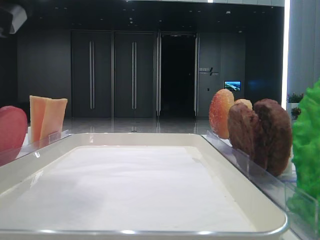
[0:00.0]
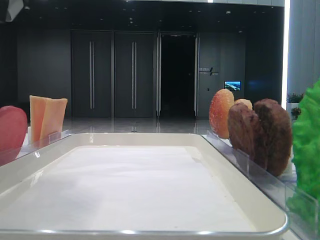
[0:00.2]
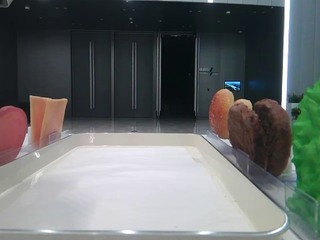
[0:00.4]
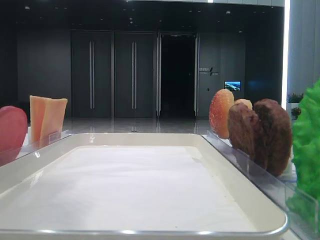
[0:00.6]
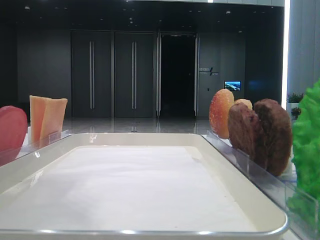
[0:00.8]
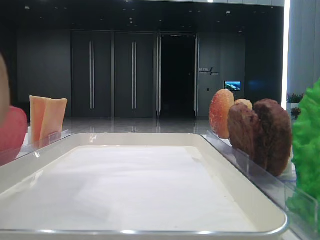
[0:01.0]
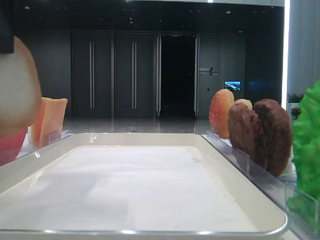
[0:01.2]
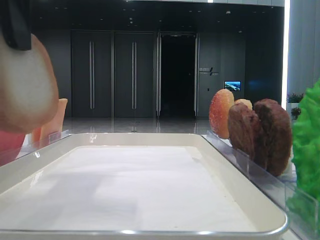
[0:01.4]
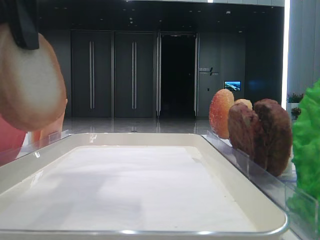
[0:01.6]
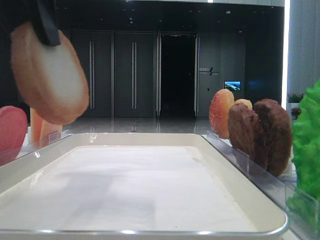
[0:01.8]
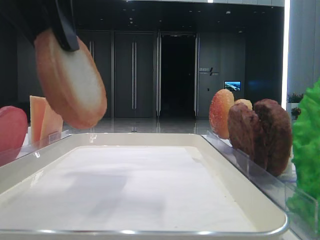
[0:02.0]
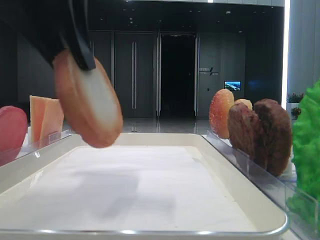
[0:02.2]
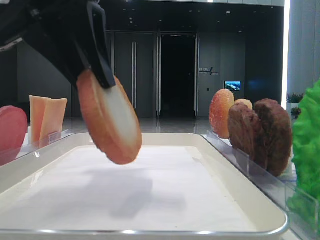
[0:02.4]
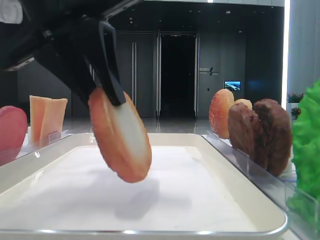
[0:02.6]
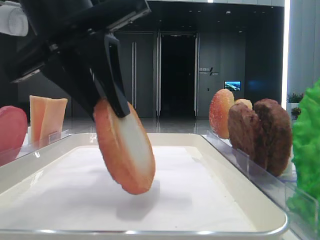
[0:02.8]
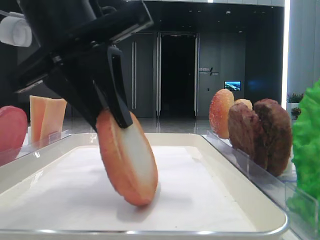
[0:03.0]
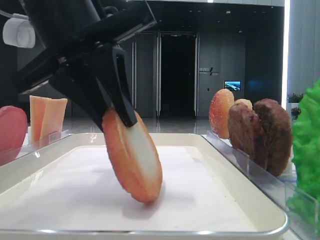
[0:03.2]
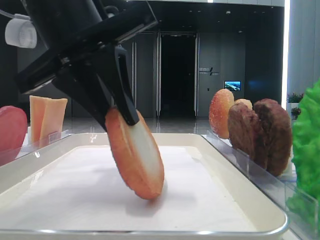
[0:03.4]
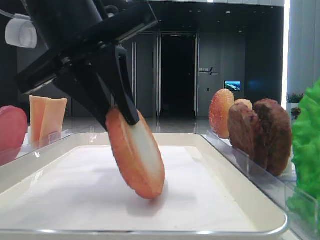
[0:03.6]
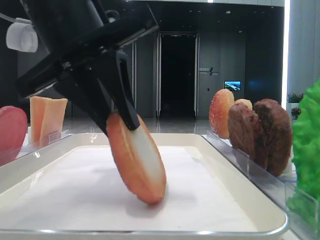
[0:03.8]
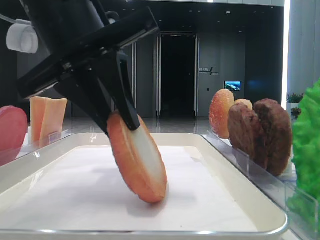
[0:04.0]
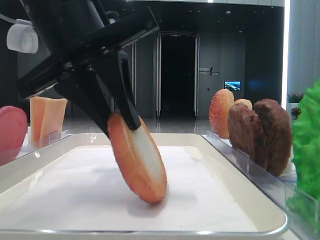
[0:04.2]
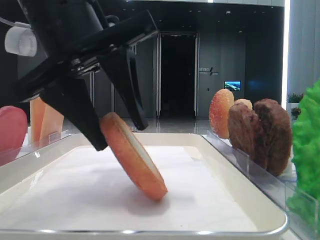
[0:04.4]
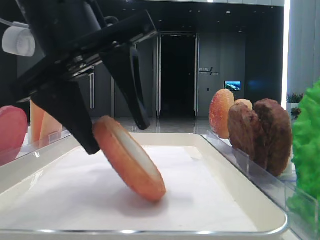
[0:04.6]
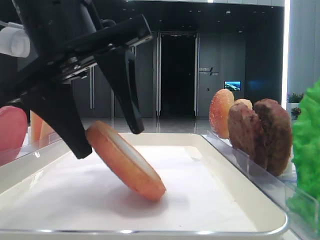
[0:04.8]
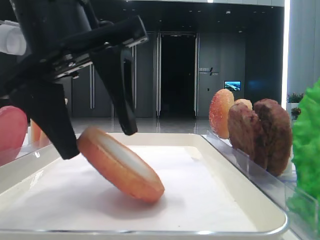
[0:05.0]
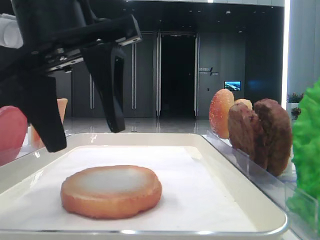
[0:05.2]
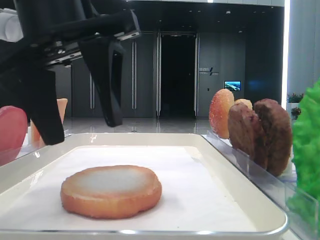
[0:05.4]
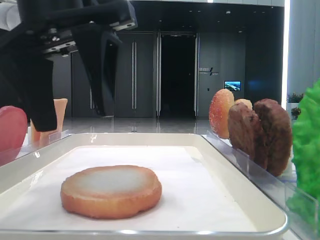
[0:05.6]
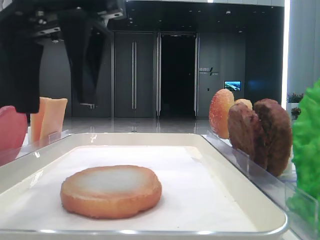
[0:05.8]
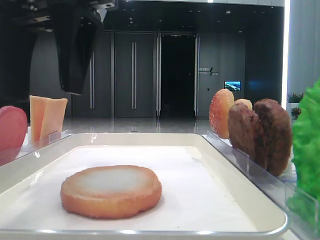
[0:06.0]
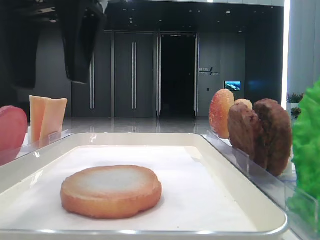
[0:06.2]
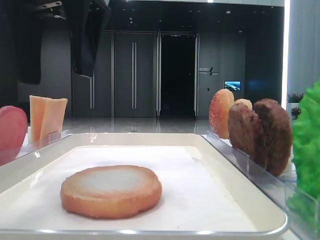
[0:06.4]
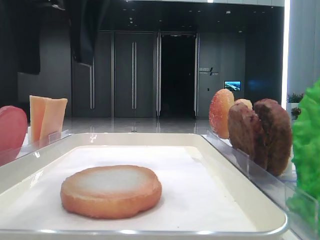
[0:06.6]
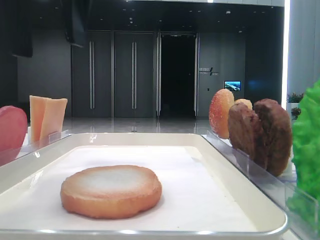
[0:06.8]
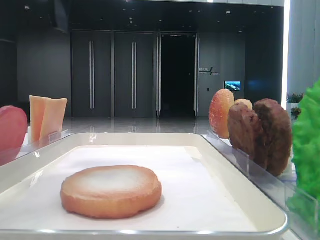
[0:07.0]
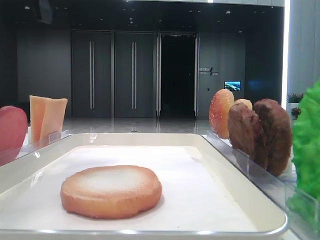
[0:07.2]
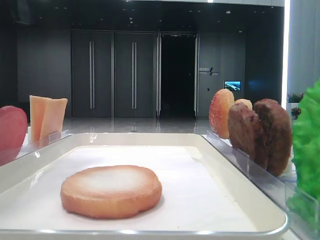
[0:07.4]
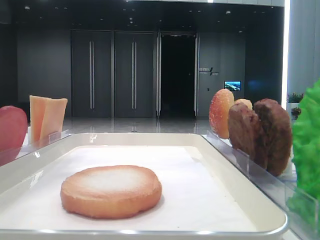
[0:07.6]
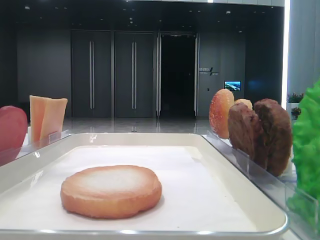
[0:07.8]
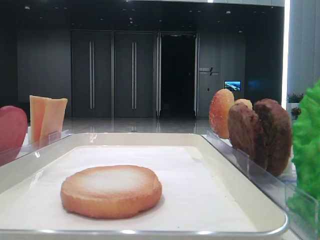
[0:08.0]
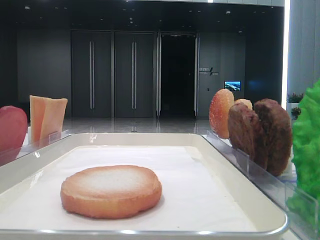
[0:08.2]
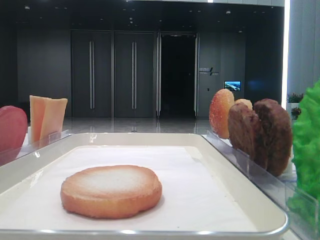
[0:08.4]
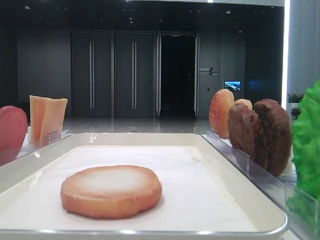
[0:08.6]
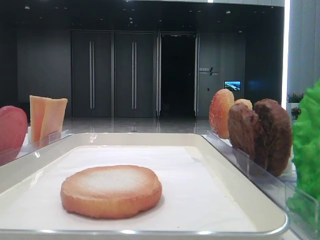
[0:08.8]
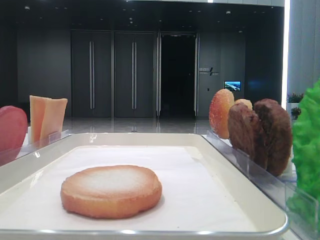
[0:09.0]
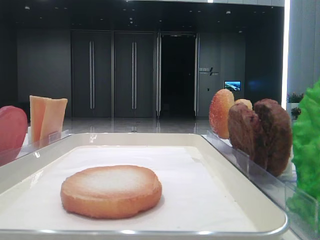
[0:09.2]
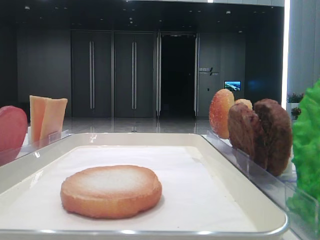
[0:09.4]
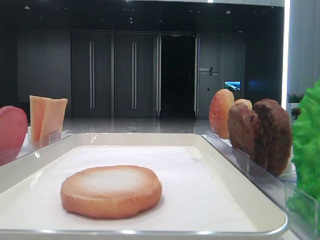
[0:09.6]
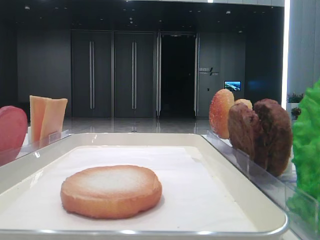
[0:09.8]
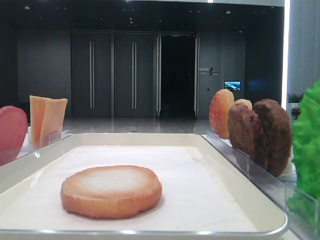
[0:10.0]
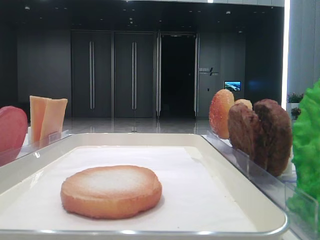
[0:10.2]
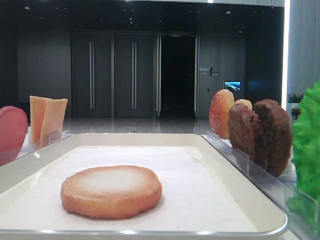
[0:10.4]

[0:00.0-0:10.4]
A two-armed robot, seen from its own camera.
Step, 0:00.0 to 0:05.0: Place the bread on the tray with the left hand.
0:00.0 to 0:01.4: The left gripper moves upward, approximately 5 cm.
0:01.4 to 0:03.0: The left gripper travels downward and to the right by some 10 cm.
0:03.0 to 0:04.4: The left gripper opens up.
0:04.4 to 0:06.0: The left gripper goes roughly 5 cm upward, and opens its fingers.
0:06.0 to 0:07.4: The left gripper heads to the left and upward, covering roughly 10 cm.

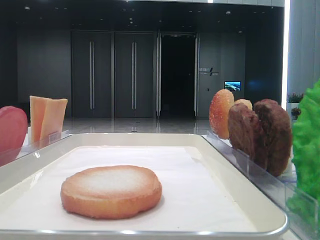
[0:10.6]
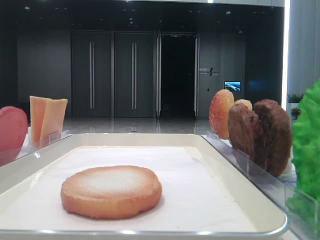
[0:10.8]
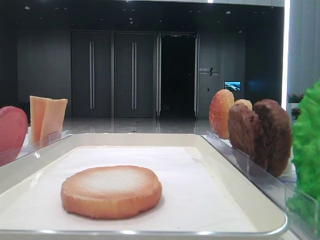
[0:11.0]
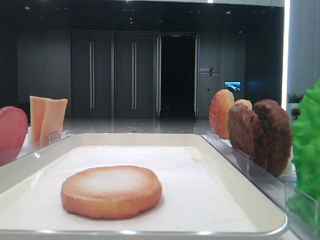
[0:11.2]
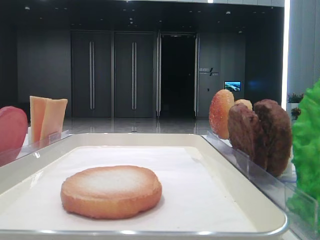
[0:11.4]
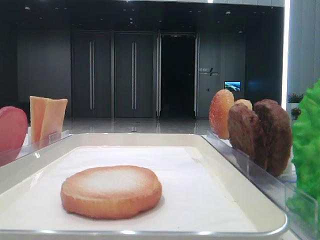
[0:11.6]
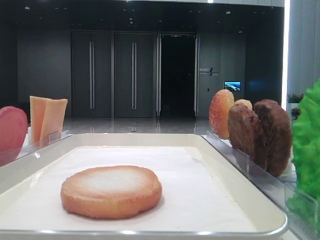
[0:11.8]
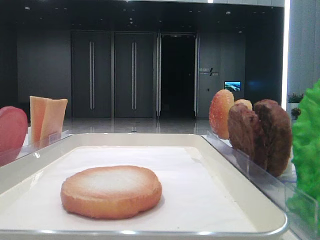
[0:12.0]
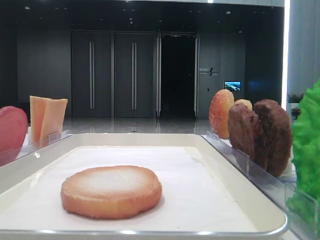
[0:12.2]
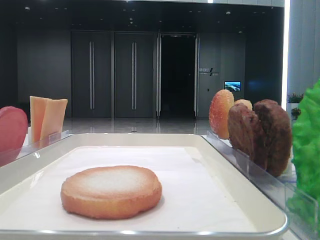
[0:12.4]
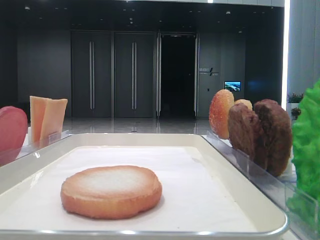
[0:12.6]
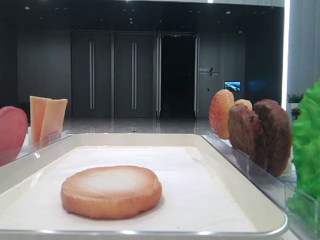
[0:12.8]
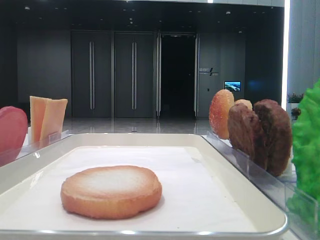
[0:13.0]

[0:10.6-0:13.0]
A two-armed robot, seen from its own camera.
0:11.8 to 0:13.0: The two grippers keep their place.

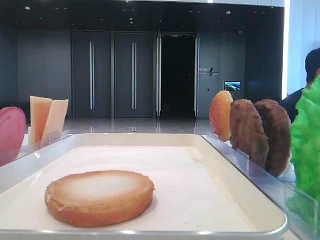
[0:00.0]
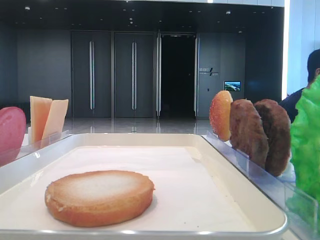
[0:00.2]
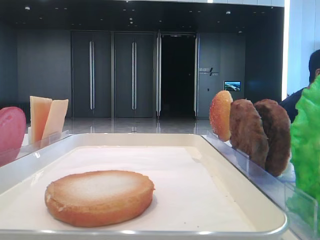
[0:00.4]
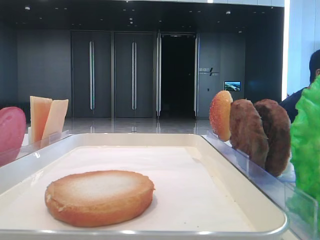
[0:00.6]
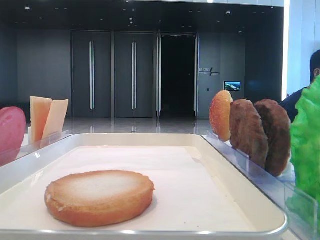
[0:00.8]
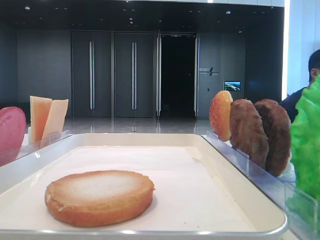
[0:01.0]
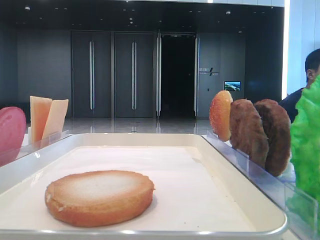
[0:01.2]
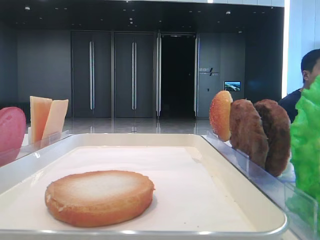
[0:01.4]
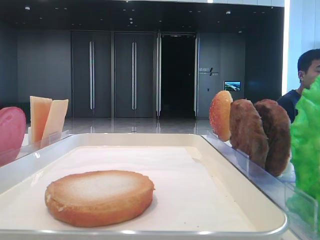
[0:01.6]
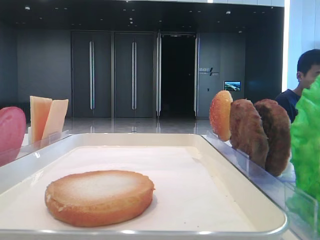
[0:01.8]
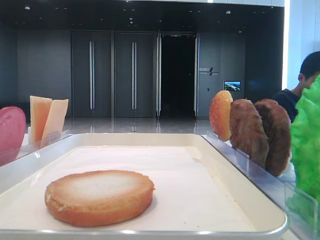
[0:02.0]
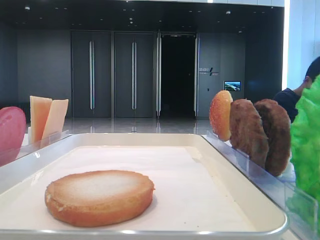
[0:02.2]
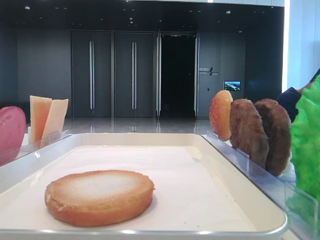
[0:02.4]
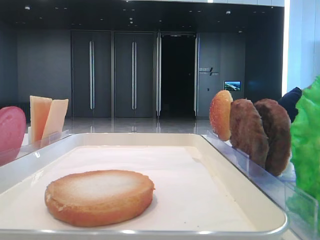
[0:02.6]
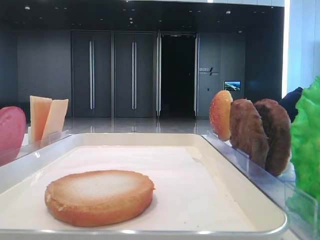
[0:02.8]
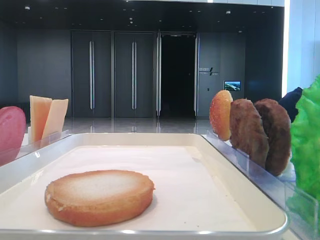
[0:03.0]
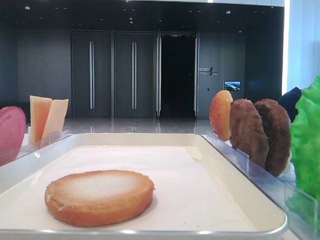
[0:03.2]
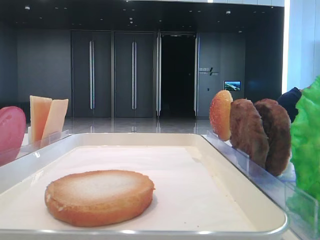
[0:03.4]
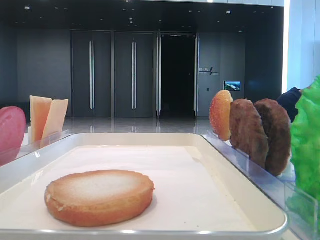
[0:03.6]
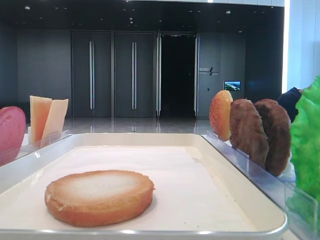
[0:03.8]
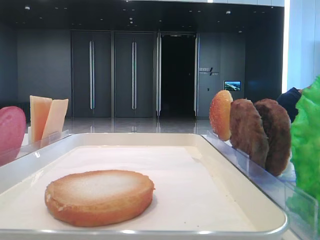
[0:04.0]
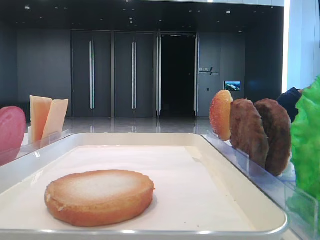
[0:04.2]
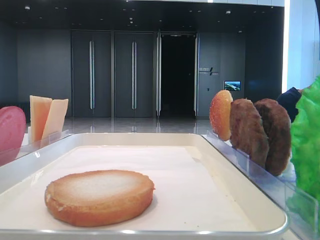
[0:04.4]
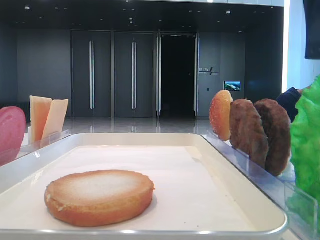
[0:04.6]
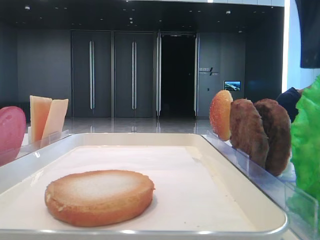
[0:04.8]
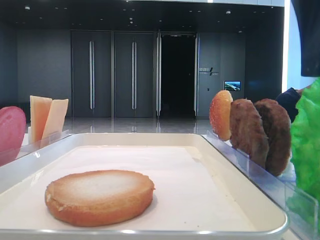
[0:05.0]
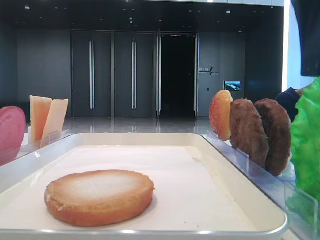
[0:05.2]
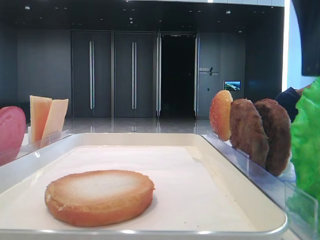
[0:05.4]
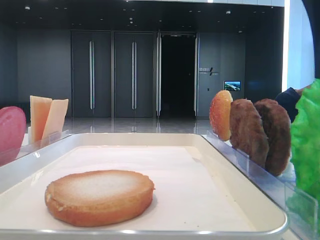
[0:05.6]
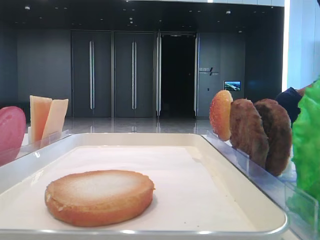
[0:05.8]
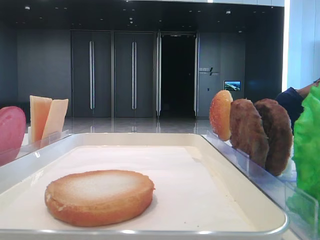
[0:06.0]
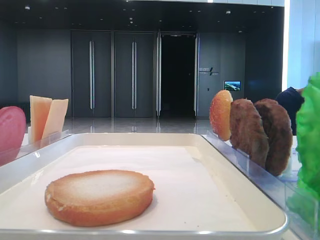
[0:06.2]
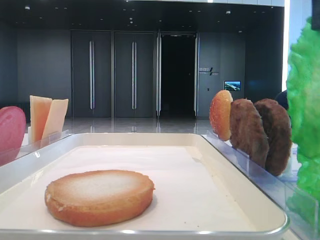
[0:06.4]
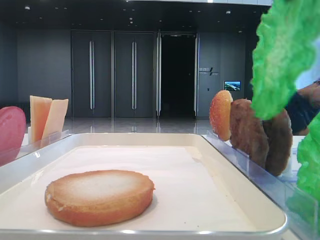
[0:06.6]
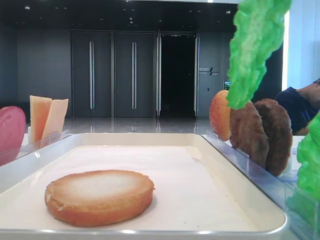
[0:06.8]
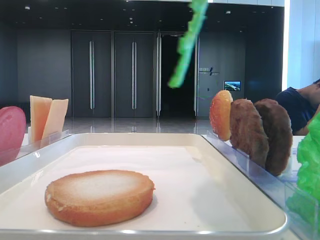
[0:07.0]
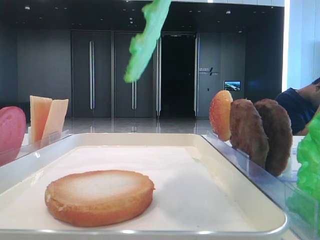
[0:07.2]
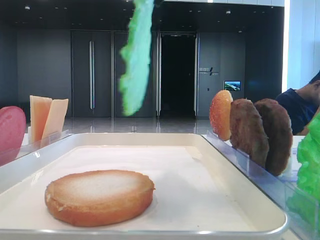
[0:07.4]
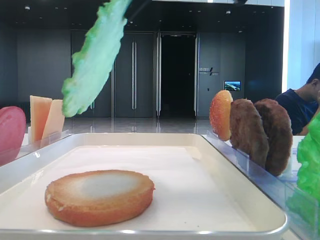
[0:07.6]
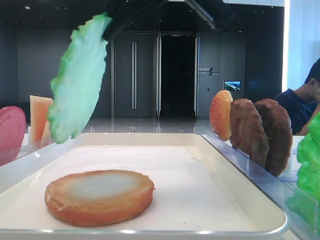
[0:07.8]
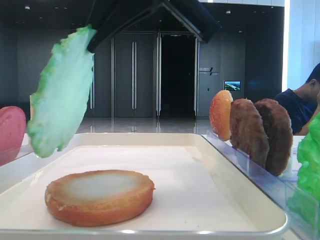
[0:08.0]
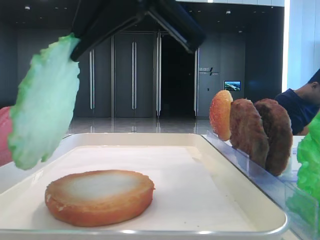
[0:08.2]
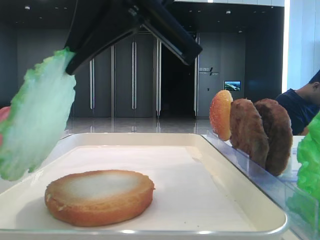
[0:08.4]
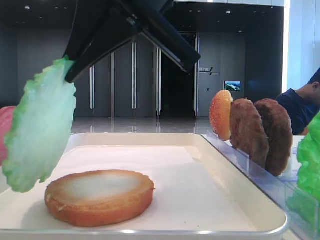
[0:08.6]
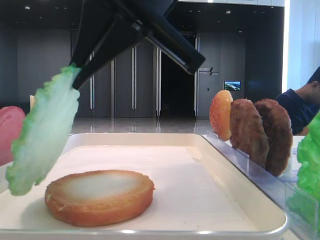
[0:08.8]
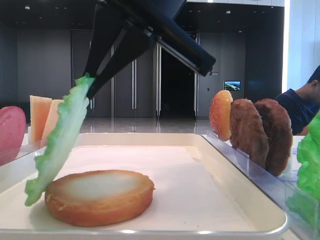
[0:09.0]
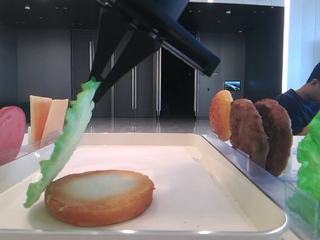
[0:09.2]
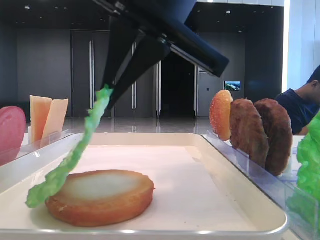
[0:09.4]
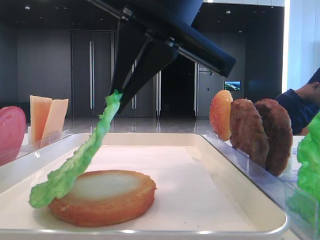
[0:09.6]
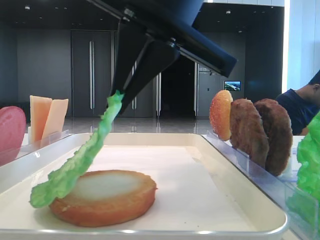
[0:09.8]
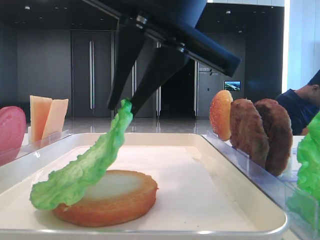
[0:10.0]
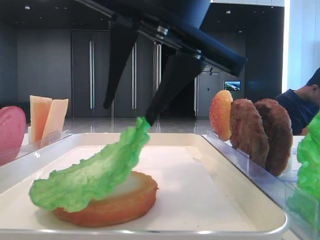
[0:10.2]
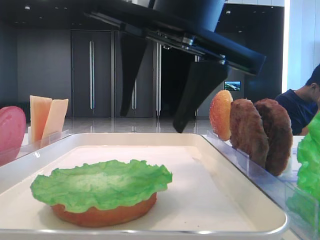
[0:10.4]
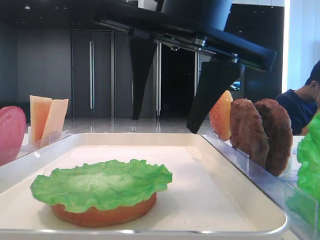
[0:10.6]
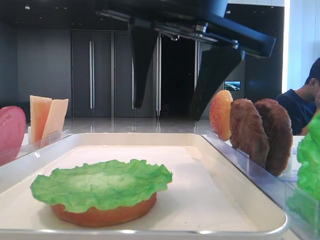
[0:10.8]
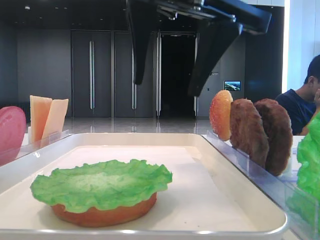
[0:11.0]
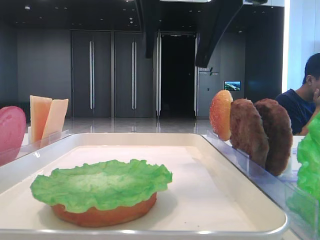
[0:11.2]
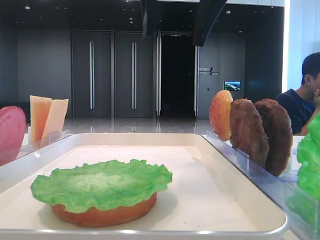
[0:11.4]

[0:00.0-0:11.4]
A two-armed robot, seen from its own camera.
Step, 0:00.0 to 0:05.6: Grab the lettuce leaf with the right hand.
Step, 0:05.8 to 0:10.2: Place the lettuce leaf on the bottom bread with the right hand.
0:01.4 to 0:02.8: The right gripper travels forward by some 20 cm.
0:04.2 to 0:05.6: The grippers move only a little.
0:05.6 to 0:07.2: The right gripper goes approximately 10 cm upward and to the left, and closes its fingers.
0:07.2 to 0:08.6: The right gripper moves downward and to the left, about 15 cm.
0:10.0 to 0:11.4: The right gripper travels upward by roughly 10 cm, and opens.
